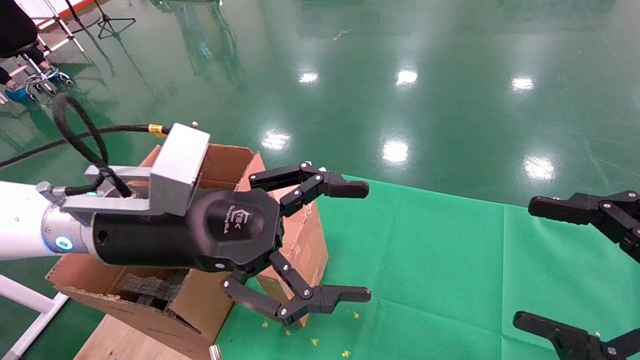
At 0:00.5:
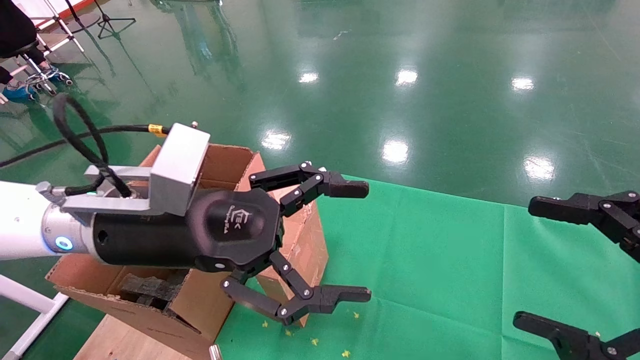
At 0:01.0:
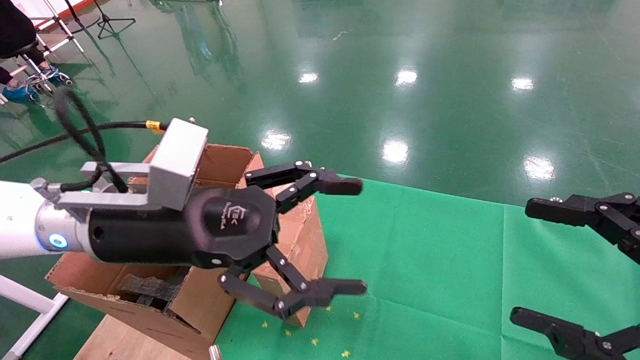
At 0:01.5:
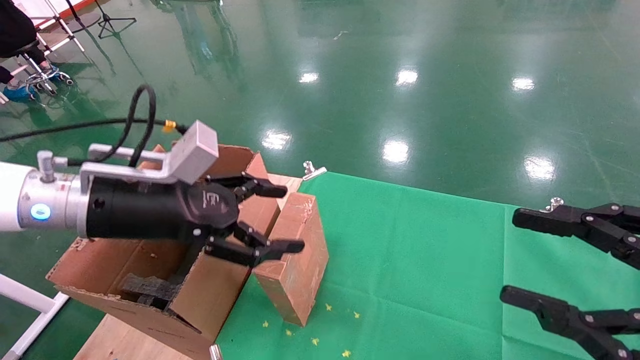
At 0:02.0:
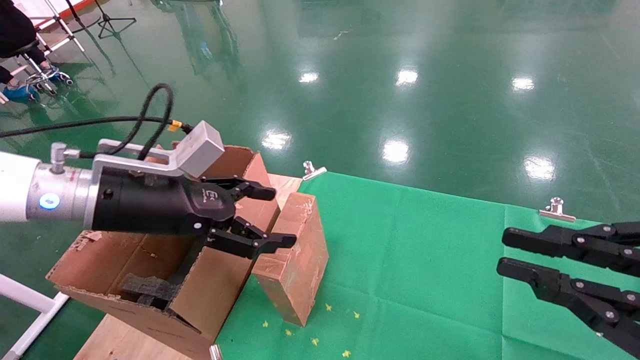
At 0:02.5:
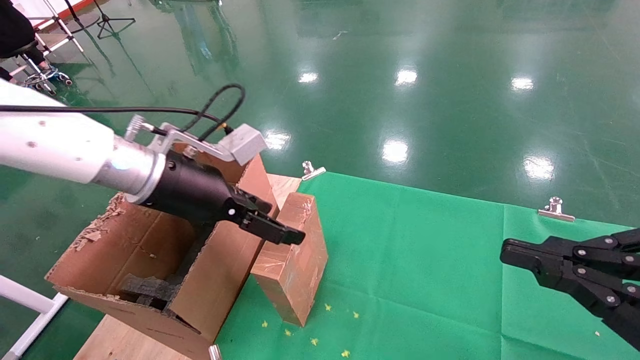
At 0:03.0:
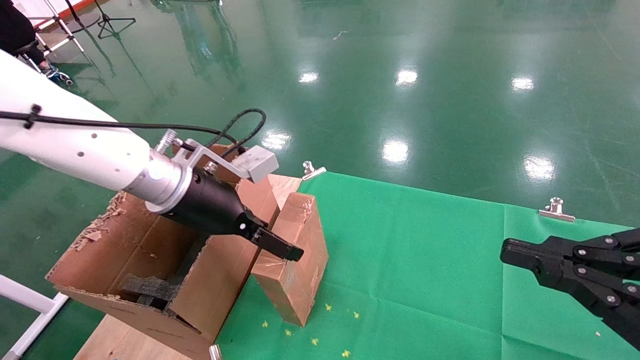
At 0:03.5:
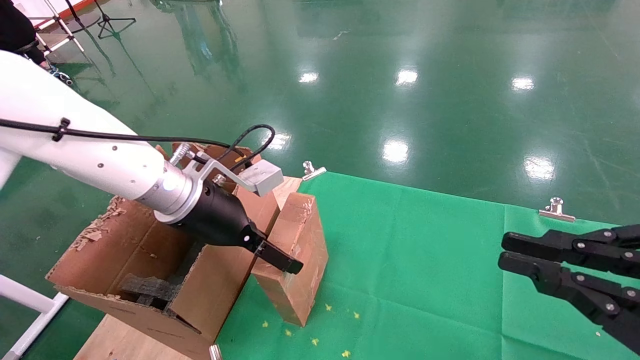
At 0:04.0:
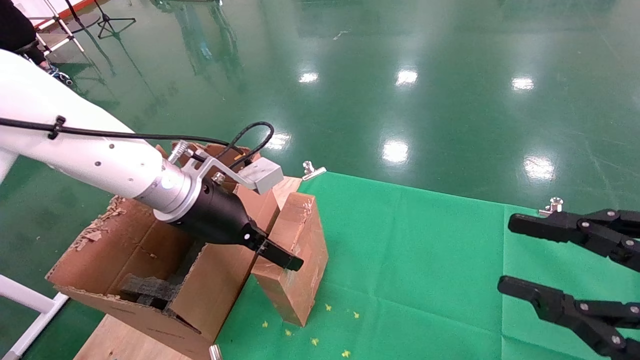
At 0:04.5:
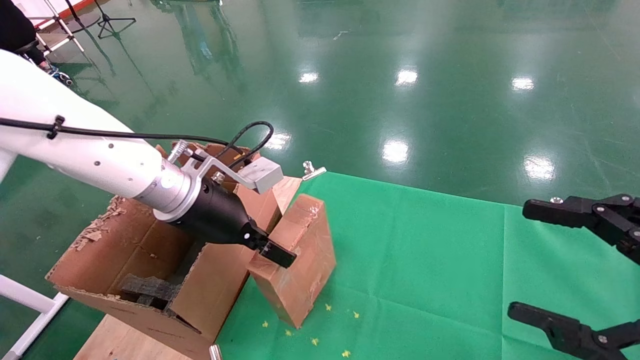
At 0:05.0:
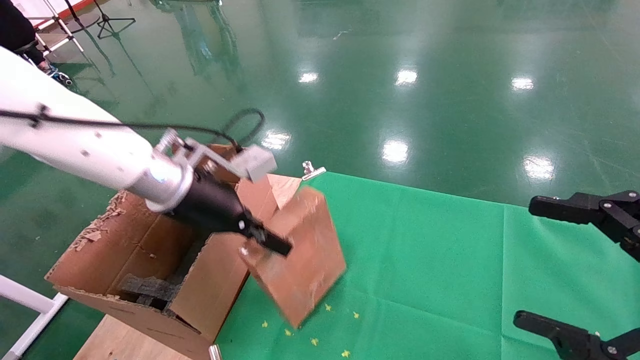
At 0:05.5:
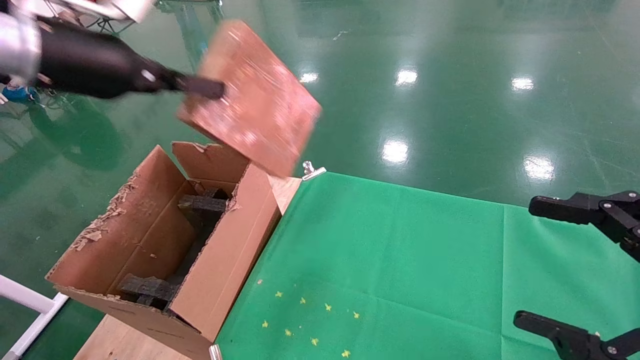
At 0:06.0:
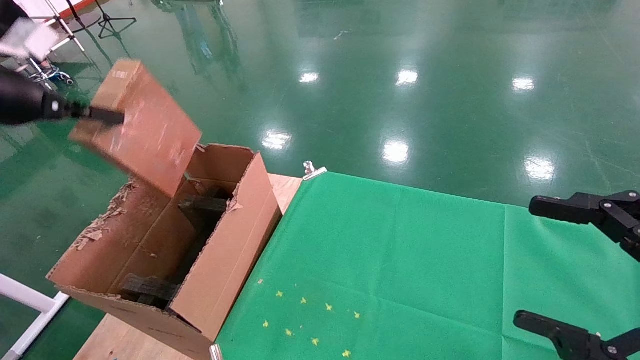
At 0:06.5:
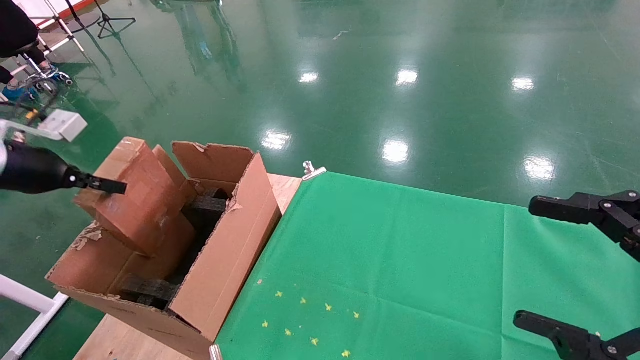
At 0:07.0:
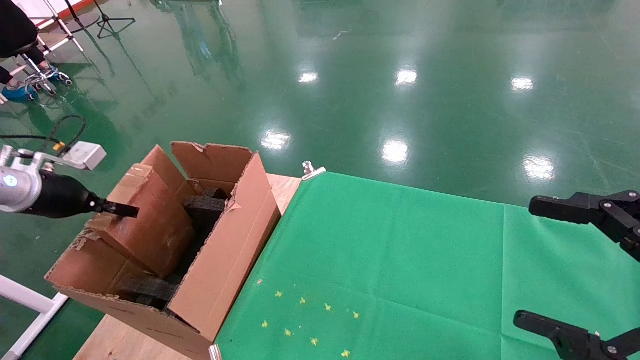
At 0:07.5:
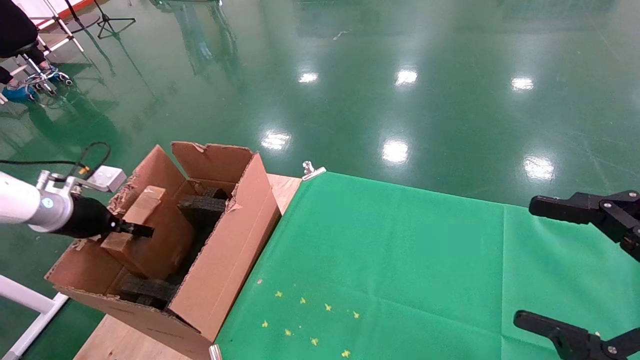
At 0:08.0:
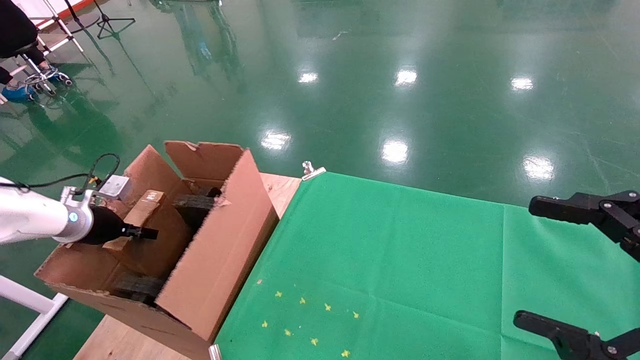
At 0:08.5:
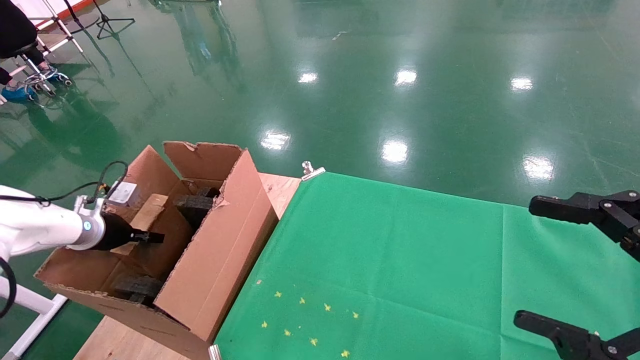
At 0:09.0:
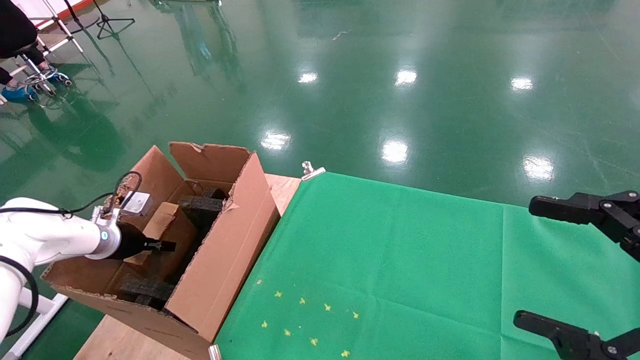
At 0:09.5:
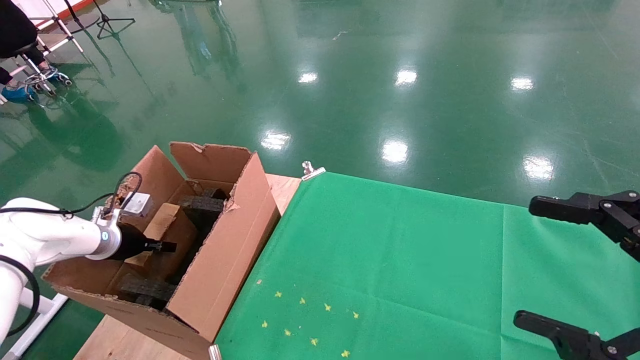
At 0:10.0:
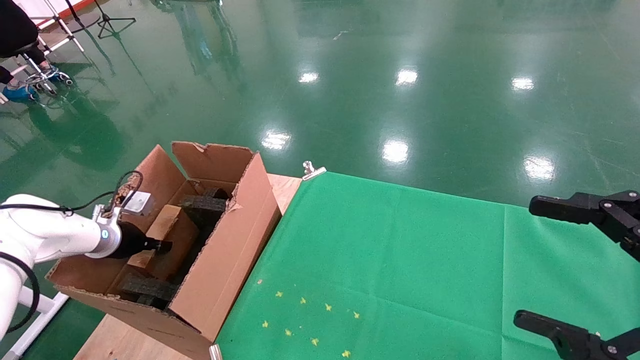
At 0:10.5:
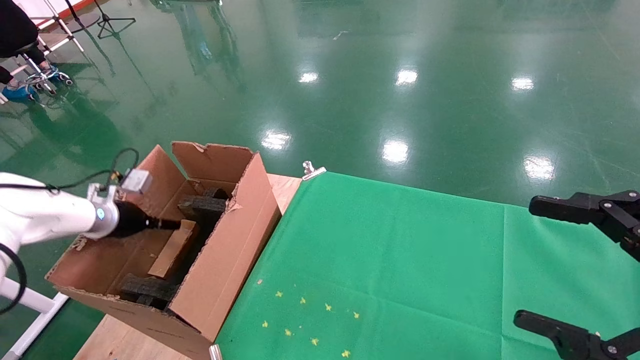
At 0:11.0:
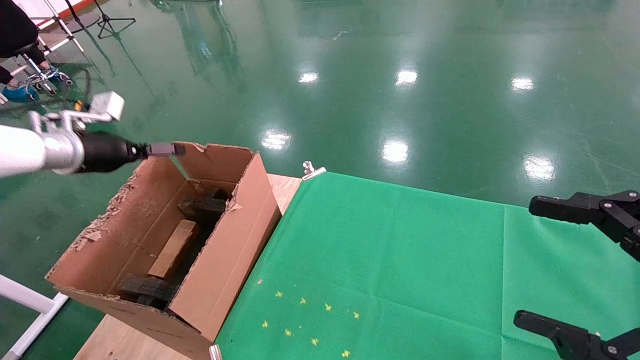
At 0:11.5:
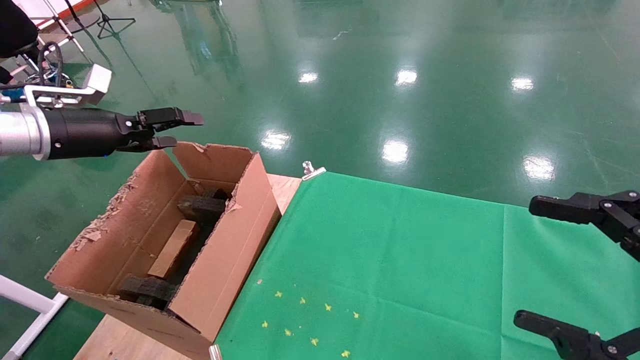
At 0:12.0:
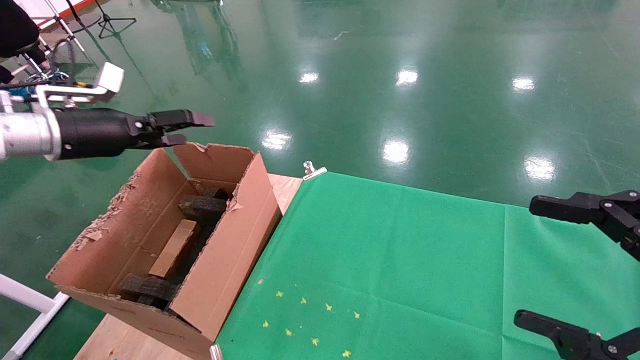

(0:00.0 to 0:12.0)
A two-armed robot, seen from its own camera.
Task of the whole recording: using a robotic arm to pick up a cardboard box and palace it the carton.
Step, 0:01.0 - 0:04.5: Pick up the mouse and the power cord paper box.
Step, 0:05.0 - 0:10.5: Place the mouse and the power cord paper box into the container.
0:00.0 - 0:02.0: The left gripper moves to the left, approximately 5 cm; the right gripper closes up.
0:02.0 - 0:04.0: The left gripper is displaced forward and to the right by about 10 cm.
0:04.0 - 0:06.0: The right gripper opens up, while the left gripper shifts roughly 30 cm to the left and upward, and closes its fingers.
0:06.0 - 0:08.0: The left gripper heads downward and forward, covering about 25 cm.
0:08.0 - 0:10.0: The left gripper moves approximately 5 cm.
0:10.0 - 0:12.0: The left gripper travels upward by some 20 cm, and opens its fingers.

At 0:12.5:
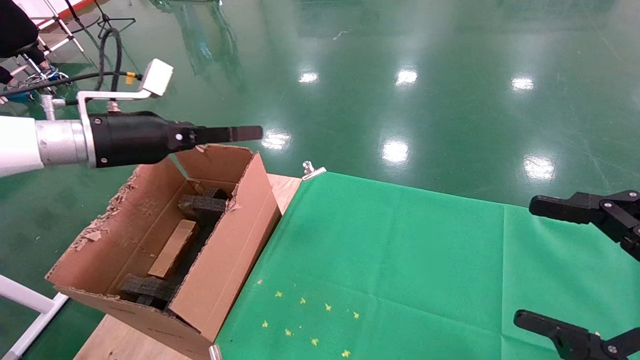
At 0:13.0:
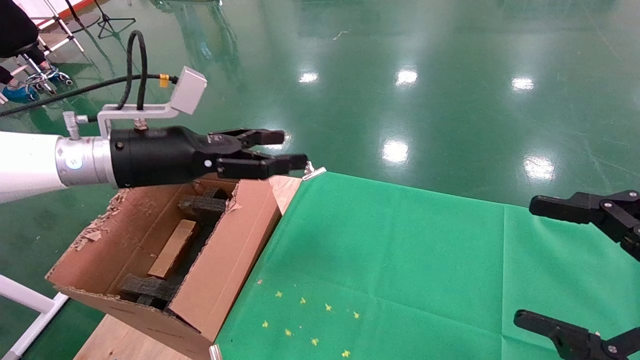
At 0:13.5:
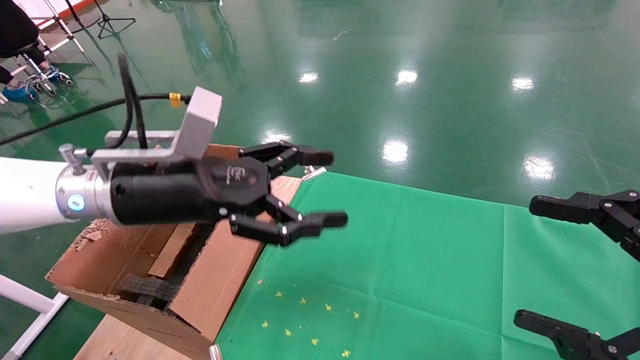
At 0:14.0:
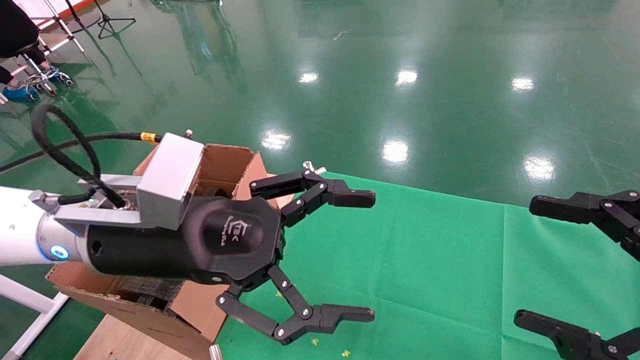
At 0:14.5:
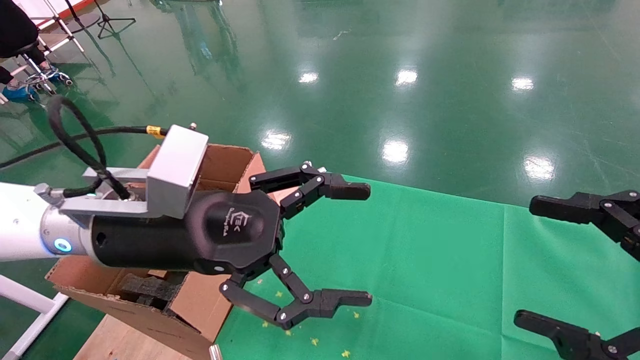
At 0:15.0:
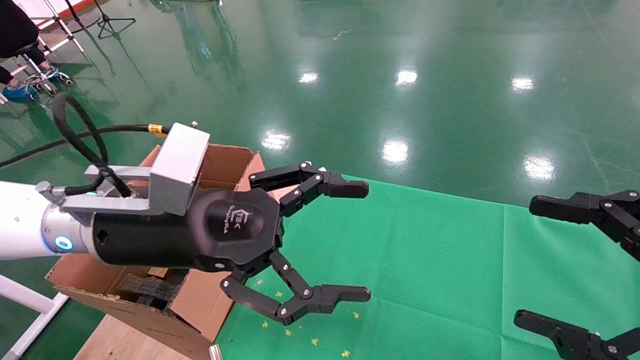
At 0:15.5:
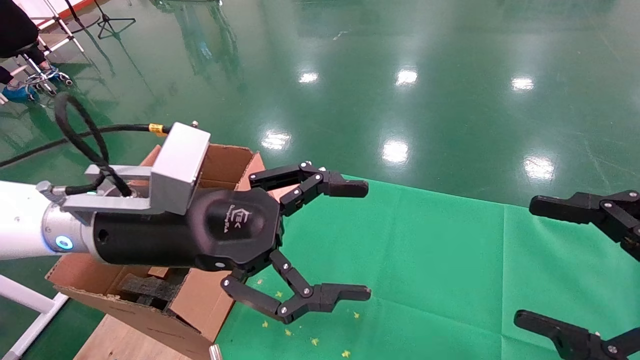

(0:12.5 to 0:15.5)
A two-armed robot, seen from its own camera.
Task of the whole recording: using a robotic arm to pick up a cardboard box and palace it the carton.
0:12.5 - 0:14.0: The left gripper moves to the right and backward, about 20 cm.
0:14.0 - 0:15.5: Neither gripper changes place.
